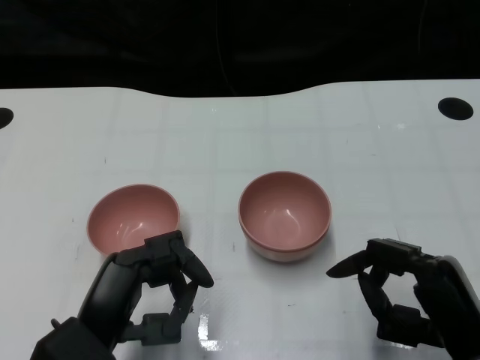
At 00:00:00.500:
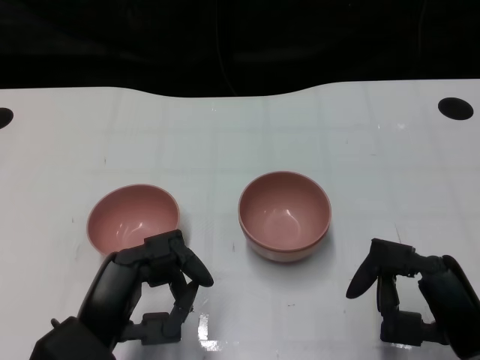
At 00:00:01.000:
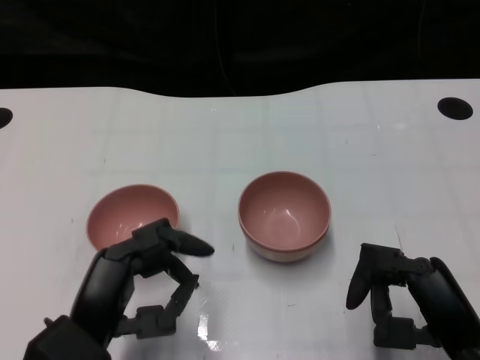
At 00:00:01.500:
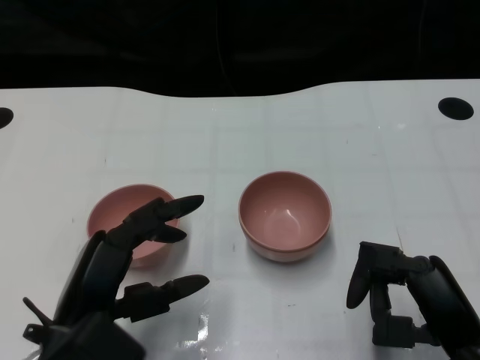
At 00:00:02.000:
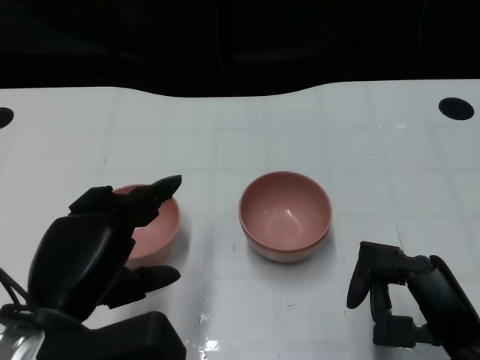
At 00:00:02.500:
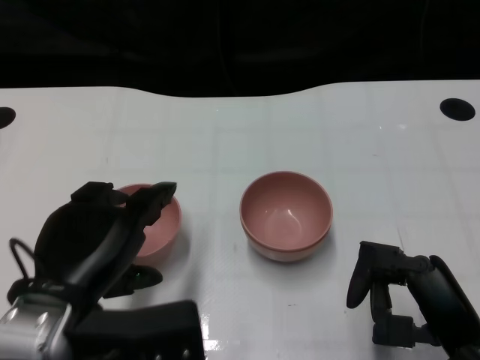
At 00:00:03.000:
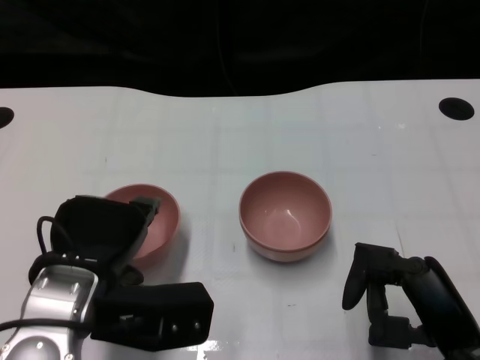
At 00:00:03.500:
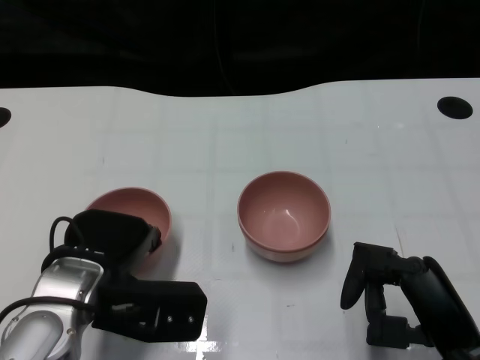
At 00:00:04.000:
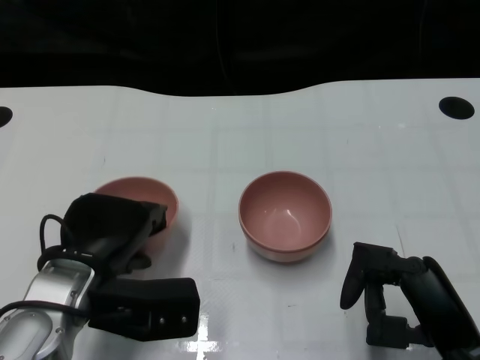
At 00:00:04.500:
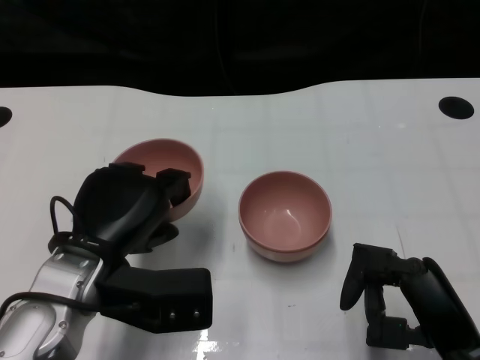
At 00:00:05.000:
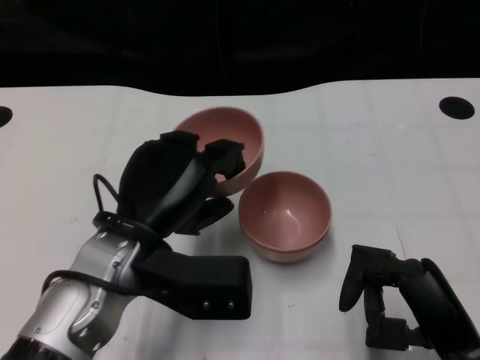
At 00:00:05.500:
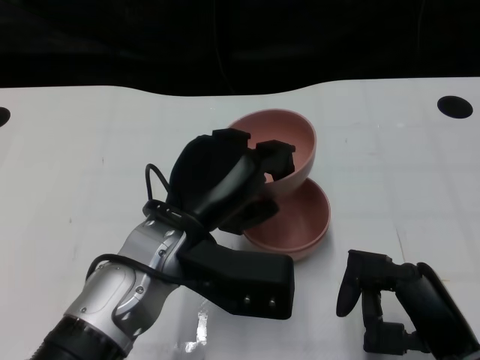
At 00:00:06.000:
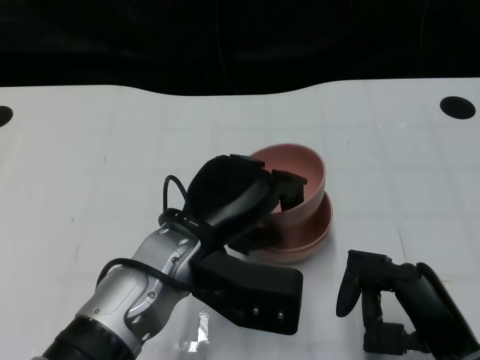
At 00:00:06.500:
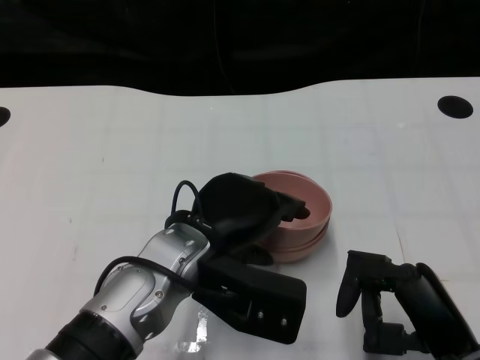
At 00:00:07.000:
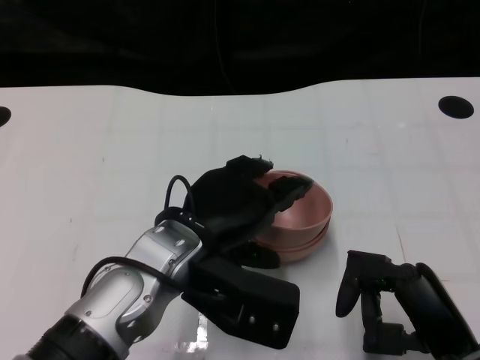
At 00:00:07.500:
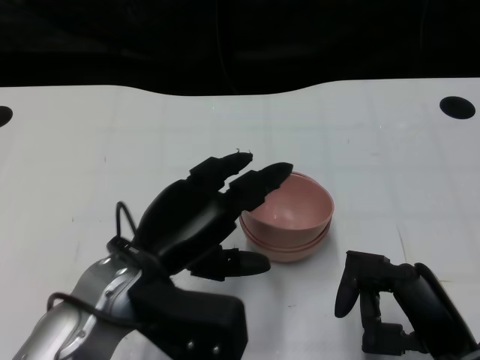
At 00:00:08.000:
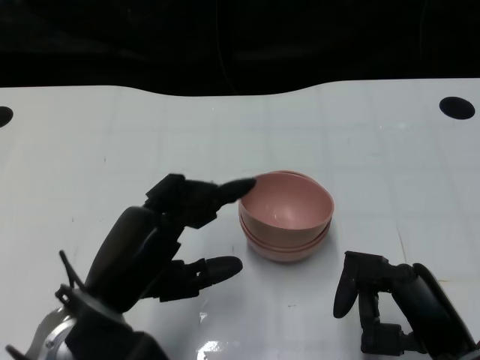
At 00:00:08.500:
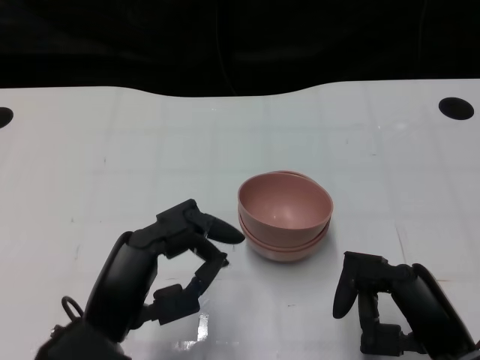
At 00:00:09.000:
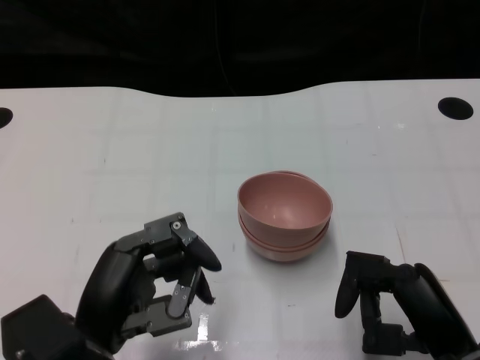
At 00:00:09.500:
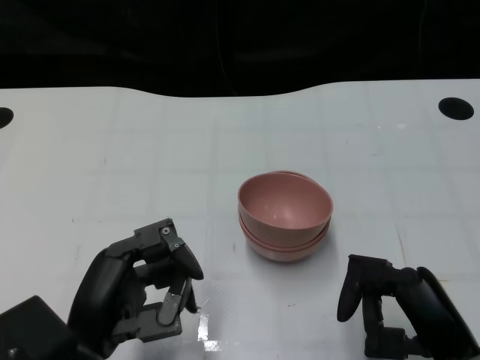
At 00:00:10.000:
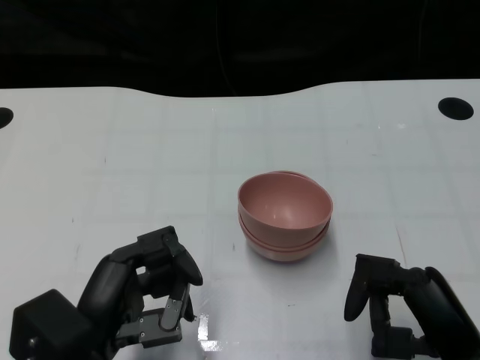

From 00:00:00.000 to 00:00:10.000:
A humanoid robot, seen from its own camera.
Task of the whole recording: Pick up the bowl on one side of the table and place it on top of the middle bowl, then pick up the bowl on the other side of the table and place it on top of the middle bowls.
Step, from 00:00:00.000 to 00:00:03.500: Grasp the bowl on the left with the left gripper.
Step, from 00:00:04.000 to 00:00:07.500: Place the bowl on the left onto the bowl in the middle with left gripper.
From 00:00:00.000 to 00:00:02.000: The left hand travels upward by about 5 cm.
From 00:00:02.000 to 00:00:04.000: The left hand heads forward, covering roughly 5 cm.
From 00:00:04.000 to 00:00:06.000: The left hand travels to the right by approximately 10 cm.
From 00:00:06.000 to 00:00:08.000: The left hand is displaced to the left and backward by some 10 cm.

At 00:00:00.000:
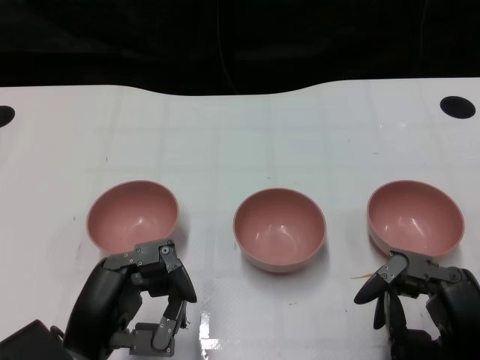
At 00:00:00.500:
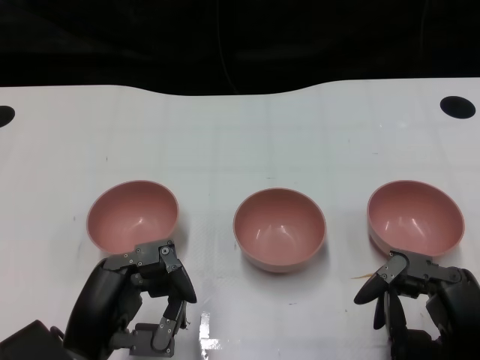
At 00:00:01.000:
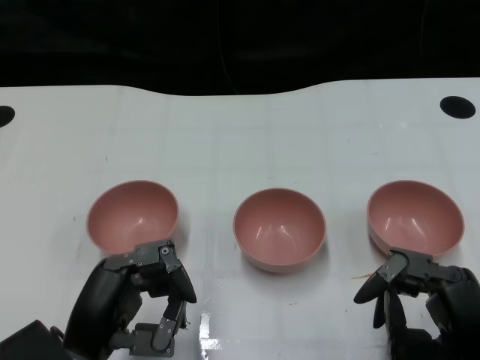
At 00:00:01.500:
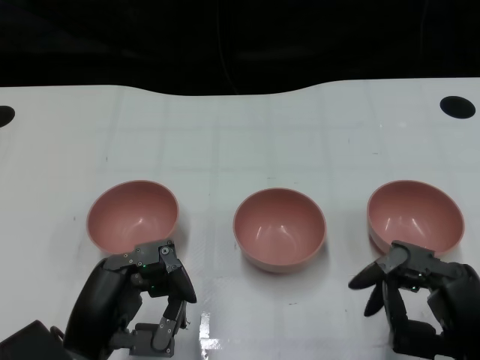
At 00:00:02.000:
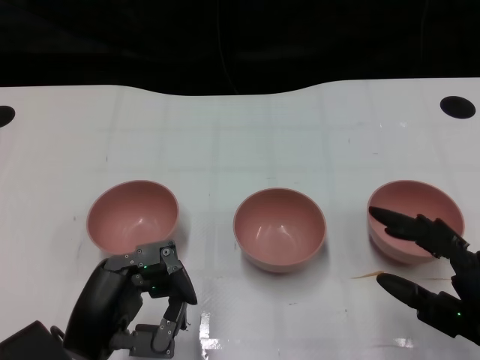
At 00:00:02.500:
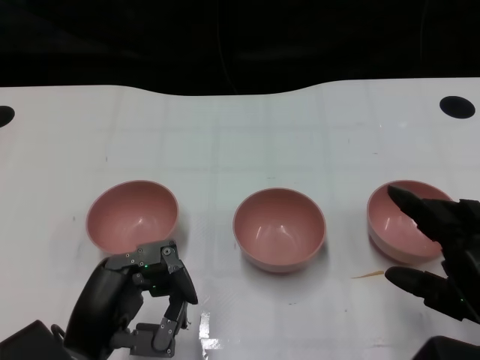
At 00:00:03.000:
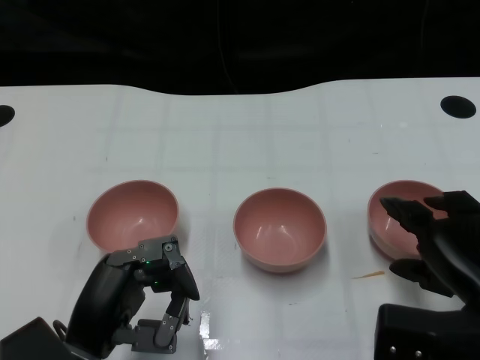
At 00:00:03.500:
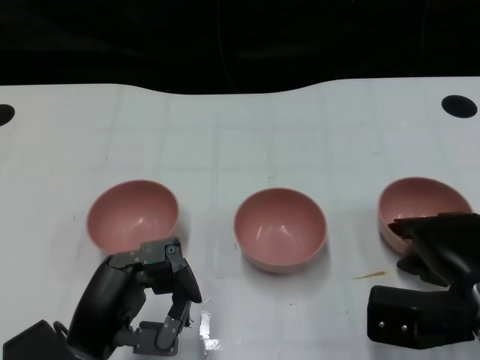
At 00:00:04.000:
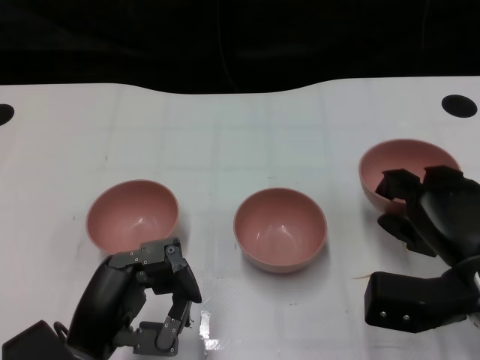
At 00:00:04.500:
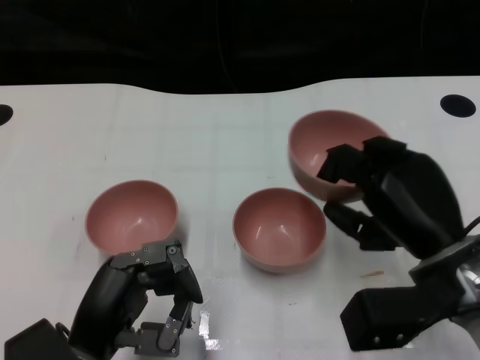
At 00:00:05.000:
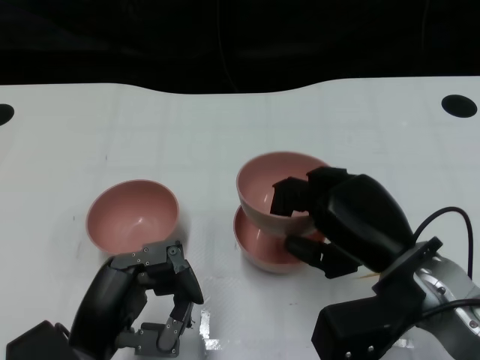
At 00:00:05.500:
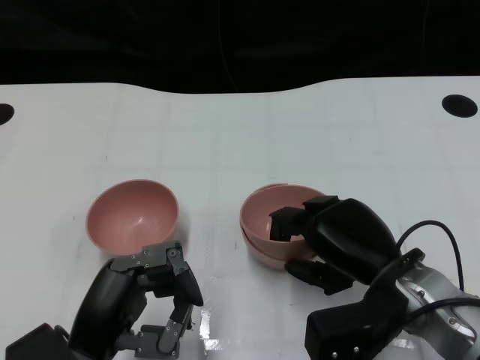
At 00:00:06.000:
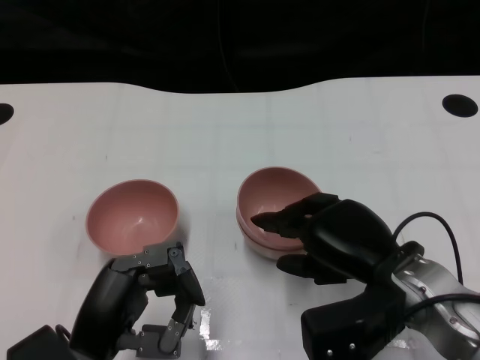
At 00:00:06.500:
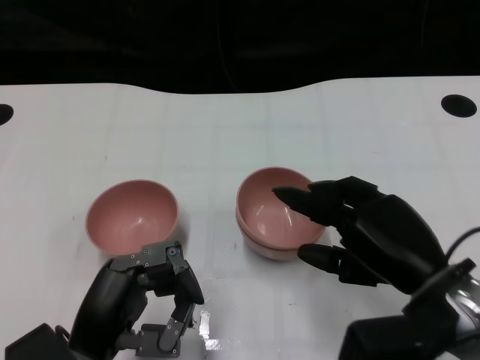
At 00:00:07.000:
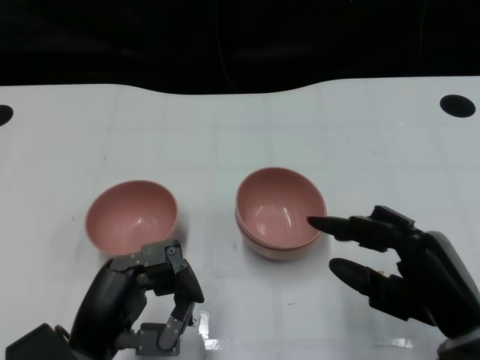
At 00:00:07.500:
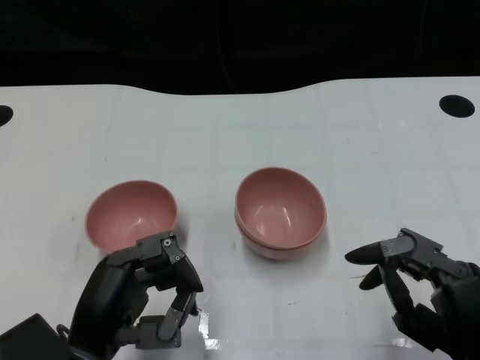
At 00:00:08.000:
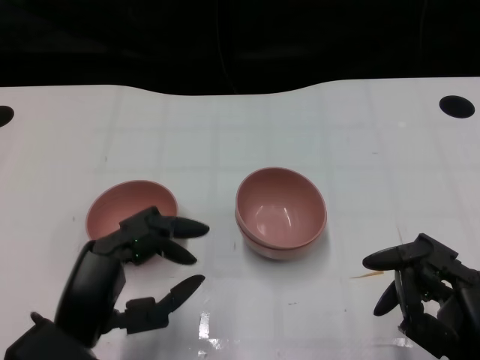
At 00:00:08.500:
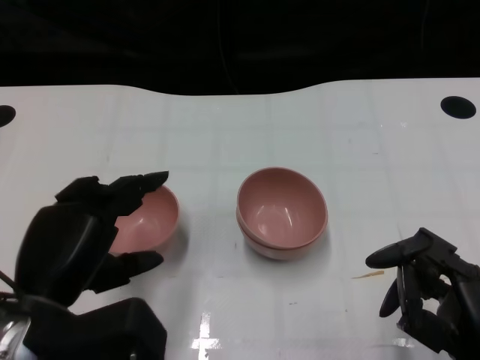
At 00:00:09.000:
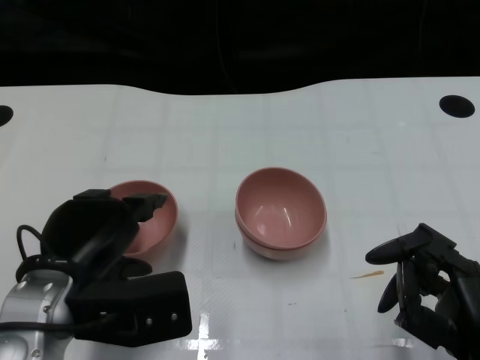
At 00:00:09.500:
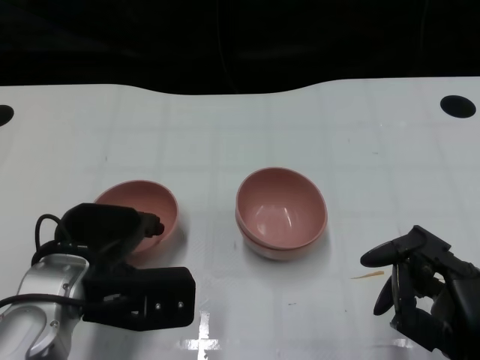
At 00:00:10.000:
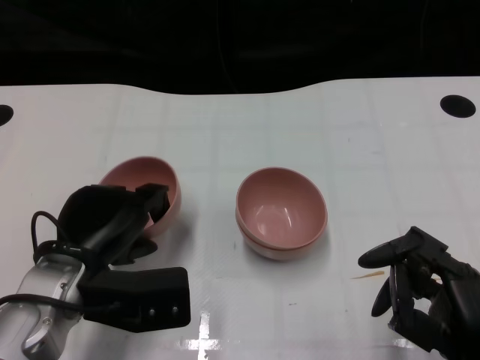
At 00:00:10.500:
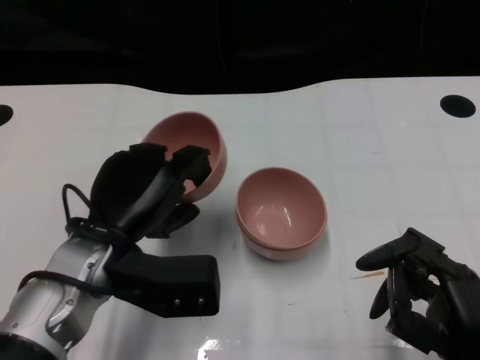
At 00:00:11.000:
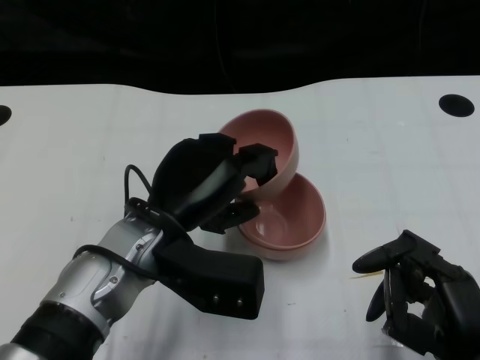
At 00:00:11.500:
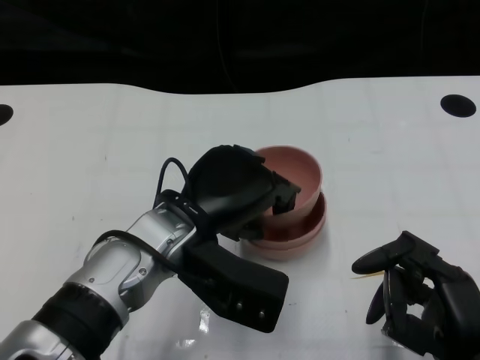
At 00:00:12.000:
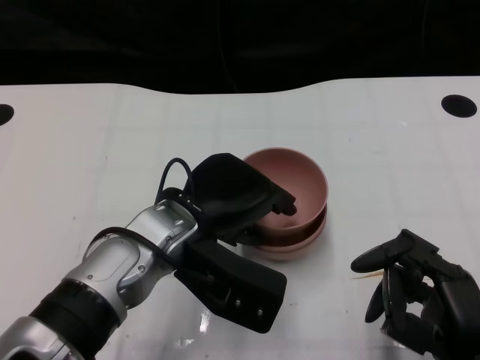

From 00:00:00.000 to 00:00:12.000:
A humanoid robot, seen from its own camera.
Task of the whole recording: Pick up the bowl on one side of the table and place it on top of the middle bowl, then pick up the bowl on the other side of the table and place it on top of the middle bowls.
Step, from 00:00:01.500 to 00:00:03.500: Grasp the bowl on the right with the right gripper.
Step, from 00:00:04.000 to 00:00:06.500: Place the bowl on the right onto the bowl in the middle with right gripper.
Step, from 00:00:07.000 to 00:00:09.500: Grasp the bowl on the left with the left gripper.
From 00:00:02.000 to 00:00:04.000: The right hand moves forward, approximately 10 cm.
From 00:00:04.000 to 00:00:06.000: The right hand goes about 5 cm to the left.
From 00:00:06.000 to 00:00:08.000: The right hand travels backward and to the right by roughly 15 cm.
From 00:00:08.000 to 00:00:10.000: The left hand travels forward by some 10 cm.
From 00:00:10.000 to 00:00:12.000: The left hand travels to the right by about 10 cm.

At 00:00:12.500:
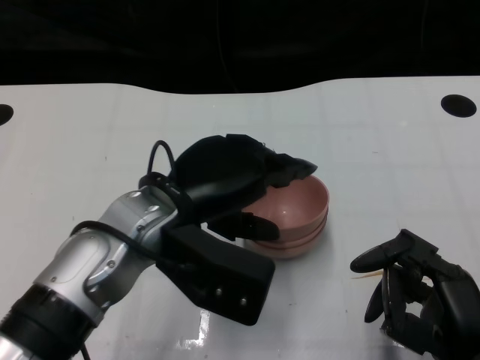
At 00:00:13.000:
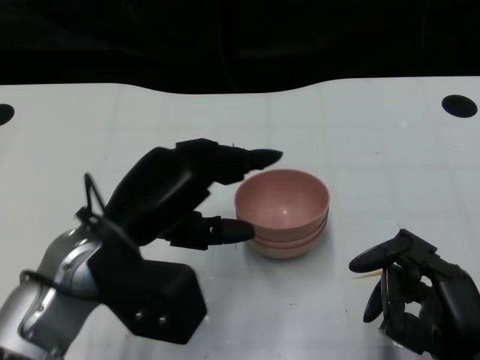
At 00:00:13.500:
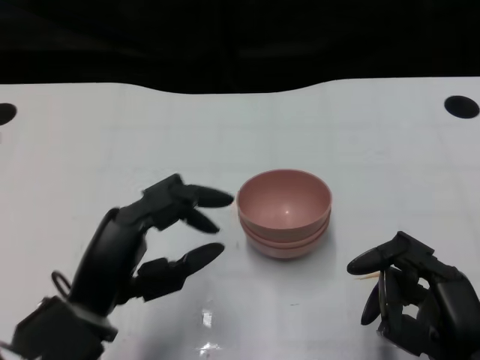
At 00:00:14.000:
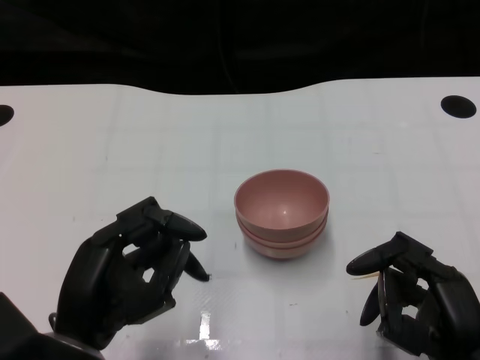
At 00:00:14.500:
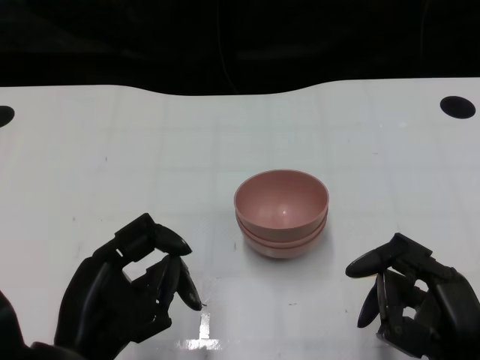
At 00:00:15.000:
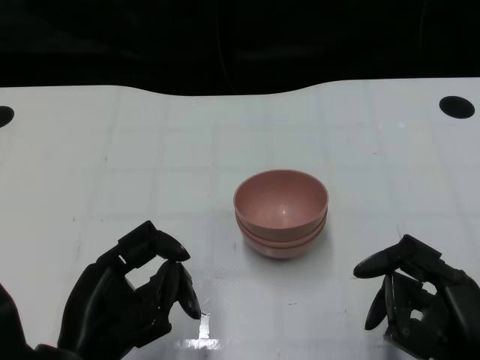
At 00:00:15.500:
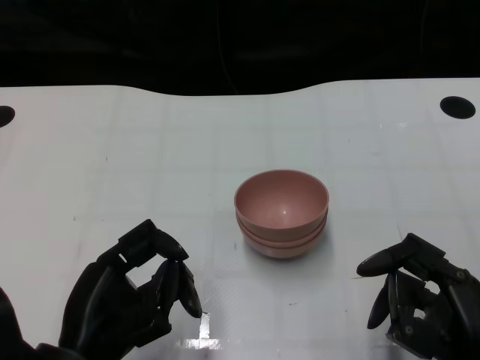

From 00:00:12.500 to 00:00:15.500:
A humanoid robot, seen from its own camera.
Task of the whole recording: Pick up the bowl on one side of the table and place it on top of the middle bowl, then pick up the bowl on the other side of the table and place it on top of the middle bowls.
From 00:00:12.500 to 00:00:14.000: The left hand shifts roughly 15 cm backward, to the left and downward.
